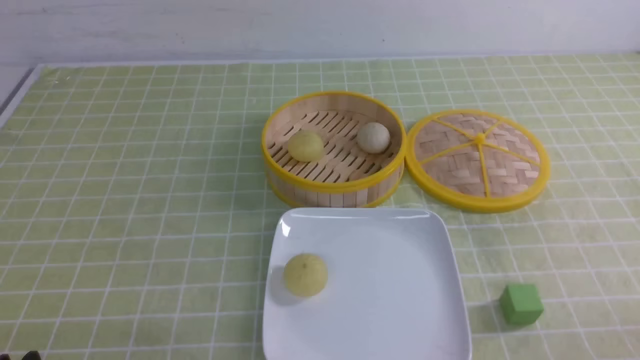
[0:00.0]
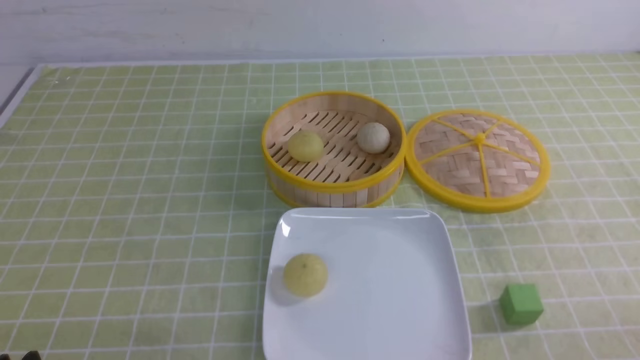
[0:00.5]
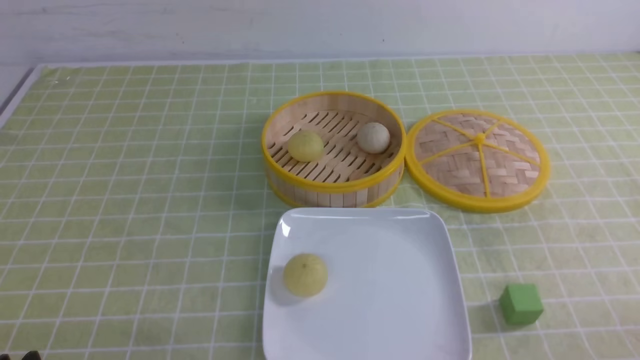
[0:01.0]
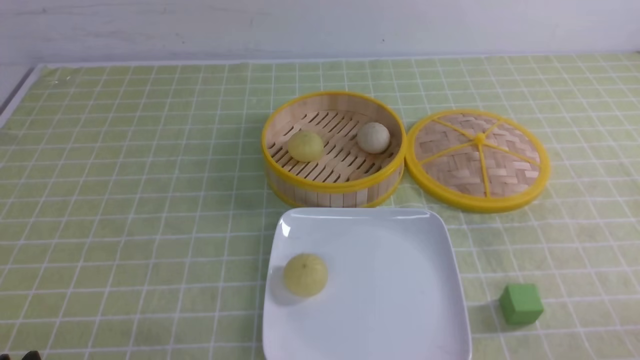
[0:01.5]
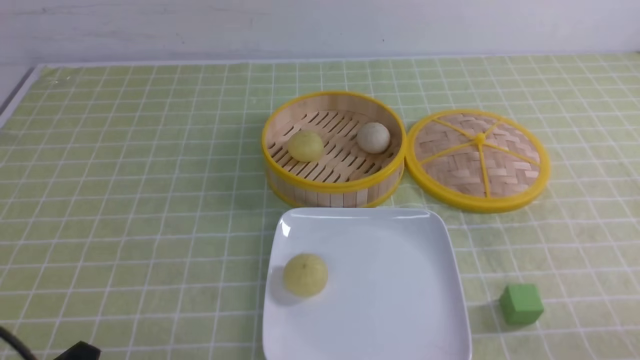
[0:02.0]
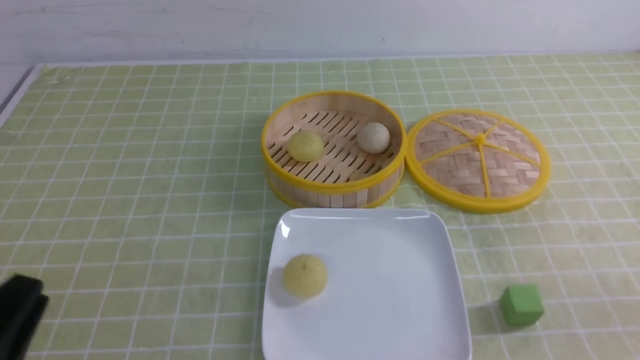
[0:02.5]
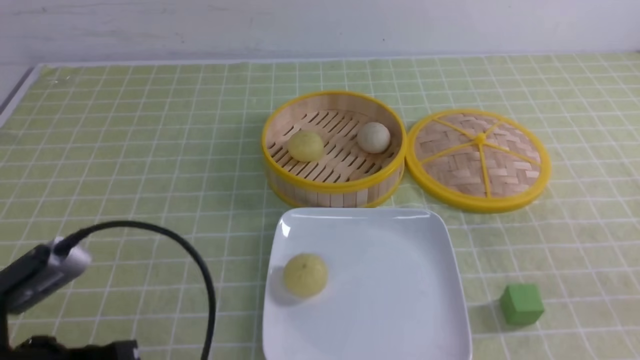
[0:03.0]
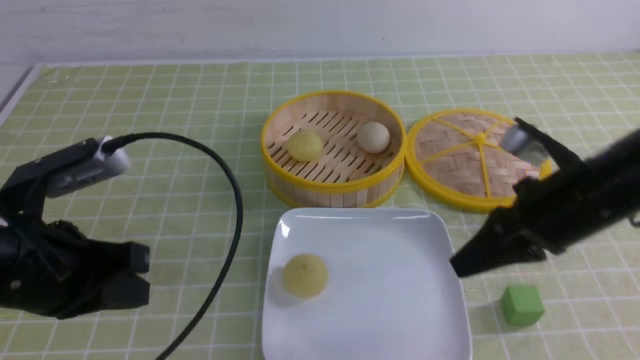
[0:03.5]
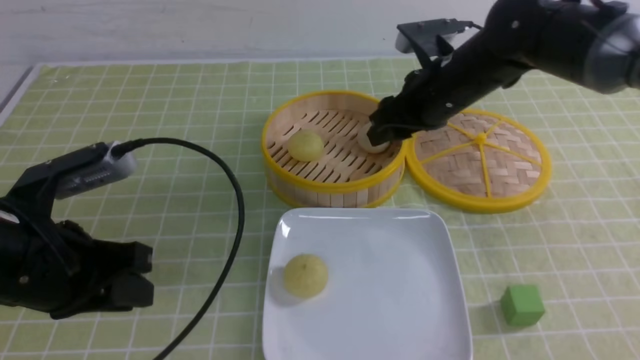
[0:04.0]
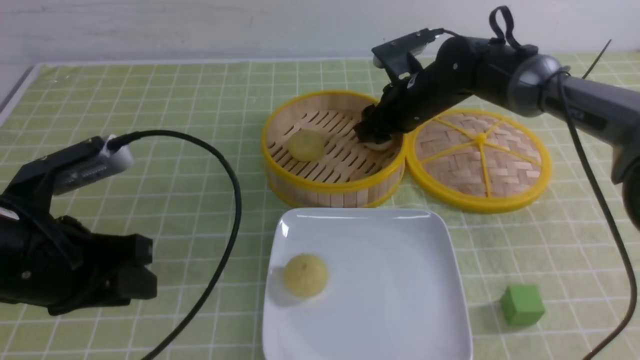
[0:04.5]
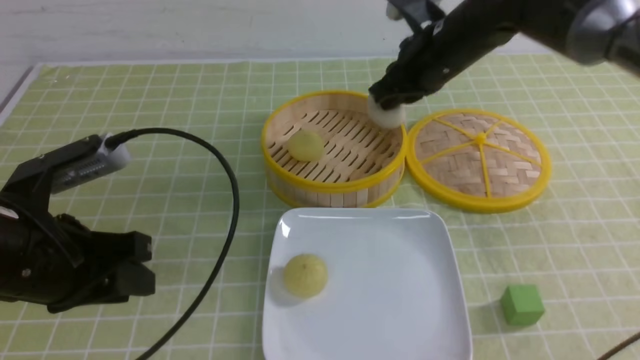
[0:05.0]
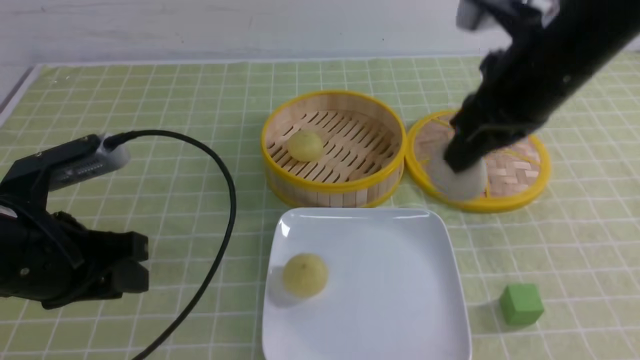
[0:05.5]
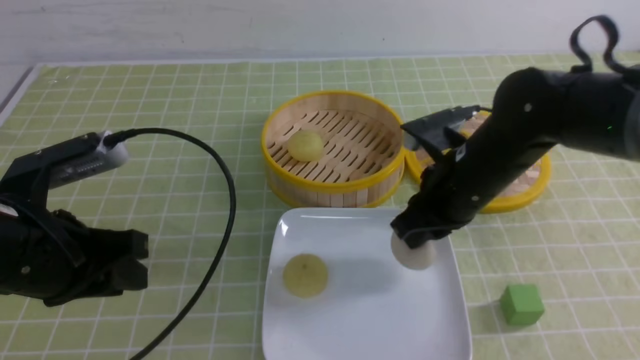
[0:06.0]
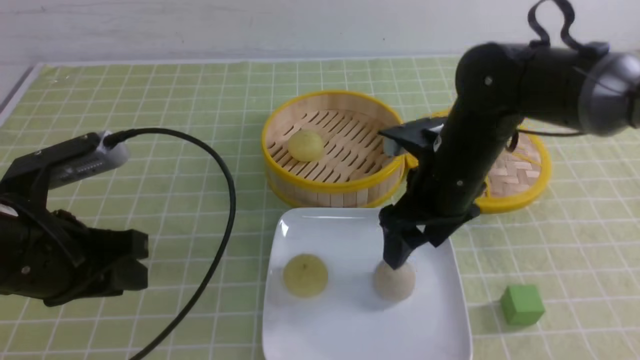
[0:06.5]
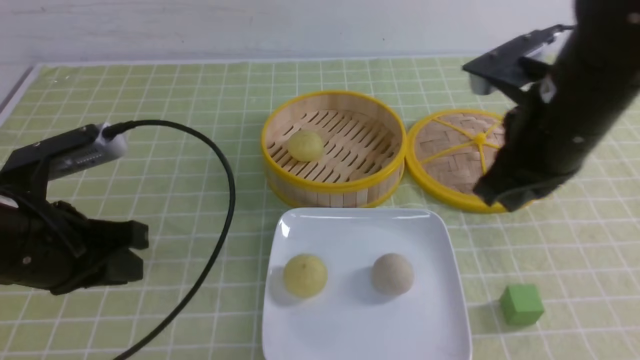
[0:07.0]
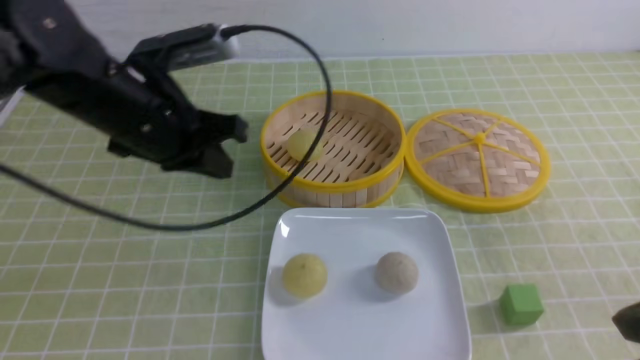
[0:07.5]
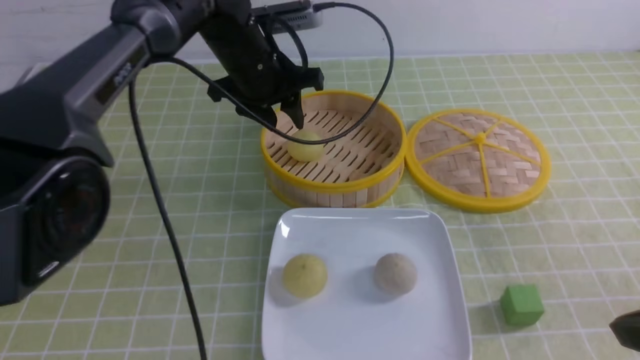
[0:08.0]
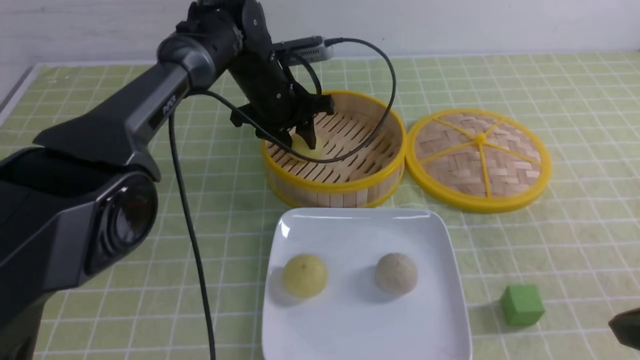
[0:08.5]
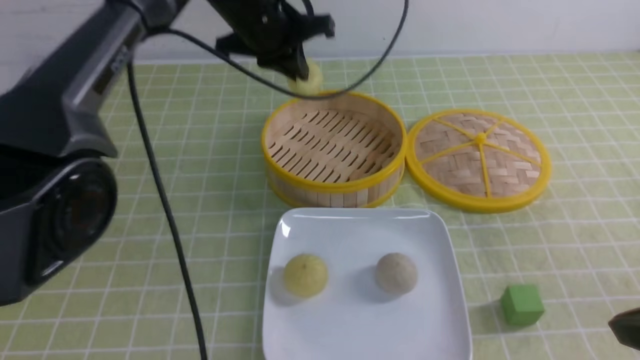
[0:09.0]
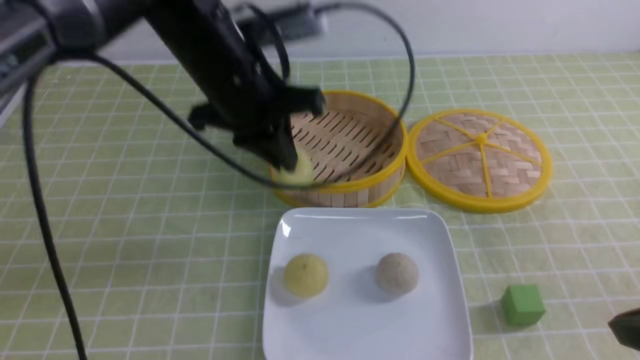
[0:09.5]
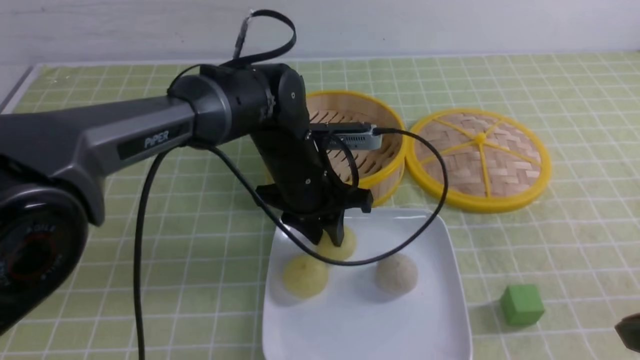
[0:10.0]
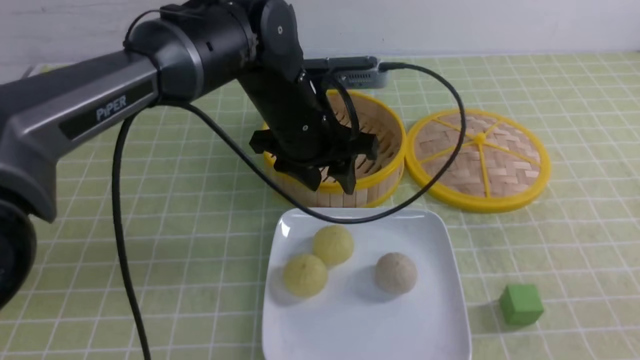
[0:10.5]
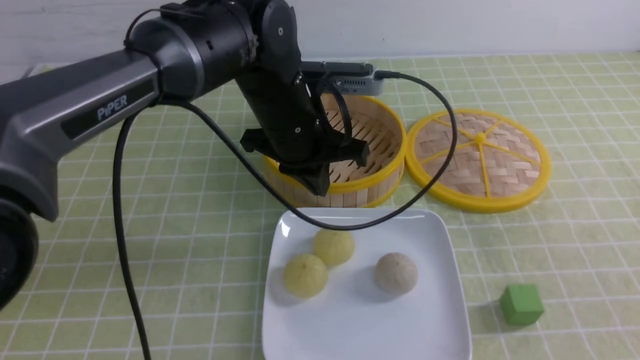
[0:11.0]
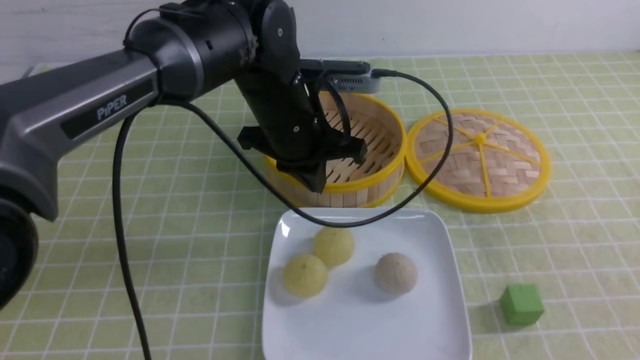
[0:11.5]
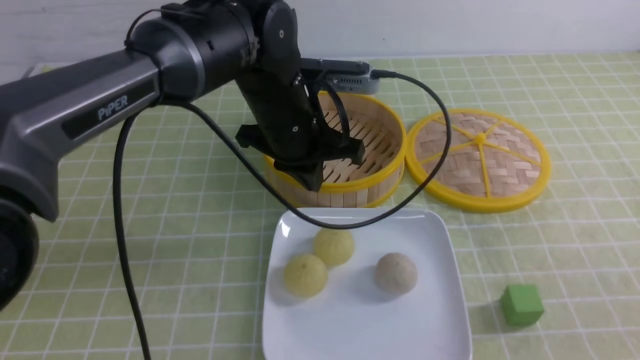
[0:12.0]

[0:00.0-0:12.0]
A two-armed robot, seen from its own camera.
Step, 0:00.0 to 0:04.5: use the right arm to grab the steamed stuffed bun that is closest to it.
Step, 0:05.0 to 0:06.0: use the right arm to put the steamed stuffed bun into the plate.
Step, 0:06.5 to 0:08.5: use the left arm to grab the steamed stuffed bun that is closest to it.
Step, 0:09.0 to 0:10.0: use the left arm to put the steamed stuffed bun into the plate.
0:02.0 to 0:04.0: The right gripper travels forward and to the left by some 40 cm, and closes, then opens again. Meanwhile the left gripper moves forward and upward, about 15 cm, and closes, then opens again.
0:04.0 to 0:06.0: The right gripper heads backward, covering roughly 10 cm, and closes.
0:06.0 to 0:08.0: The right gripper is displaced backward and to the right by roughly 25 cm, and opens and closes again; the left gripper goes some 30 cm forward and to the right, and closes, then reopens.
0:08.0 to 0:10.0: The left gripper swings up and down, roughly 15 cm each way, with 2 reversals, and closes, then reopens.
0:10.0 to 0:12.0: The right gripper is displaced backward by roughly 5 cm; the left gripper moves upward, approximately 5 cm, and closes up.

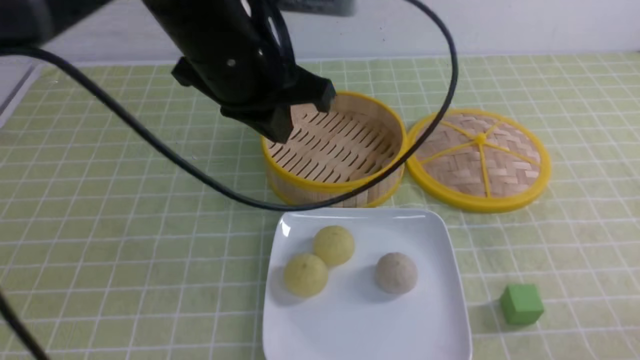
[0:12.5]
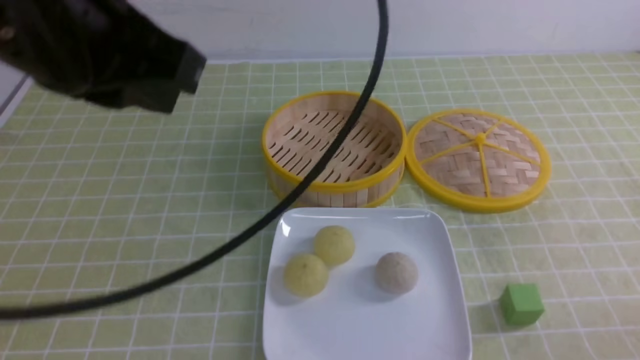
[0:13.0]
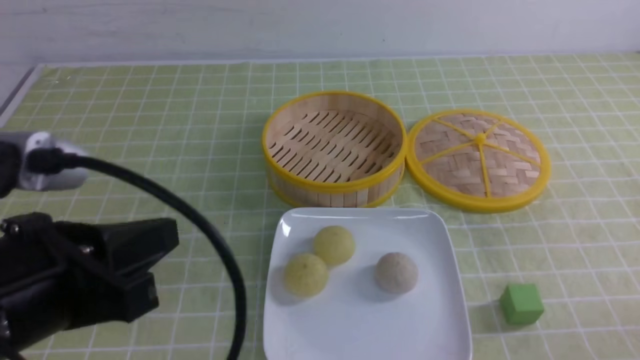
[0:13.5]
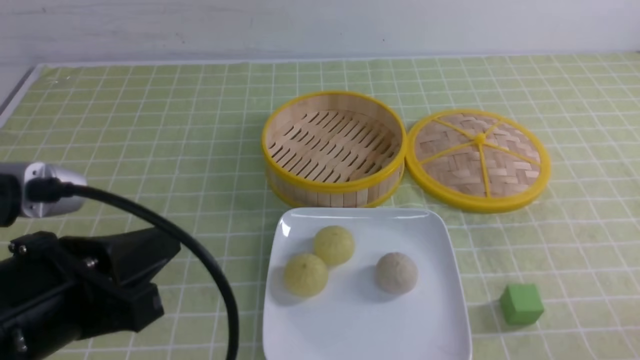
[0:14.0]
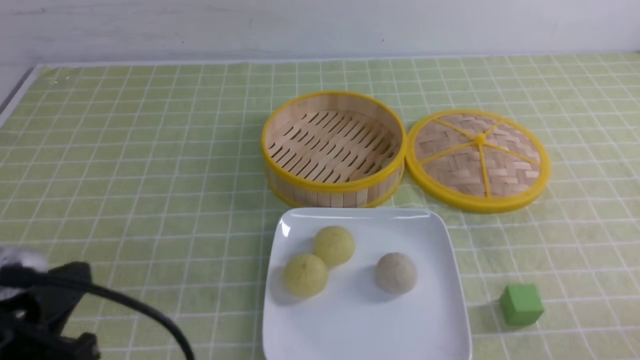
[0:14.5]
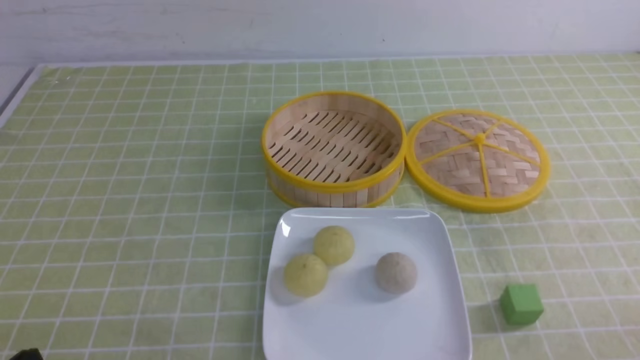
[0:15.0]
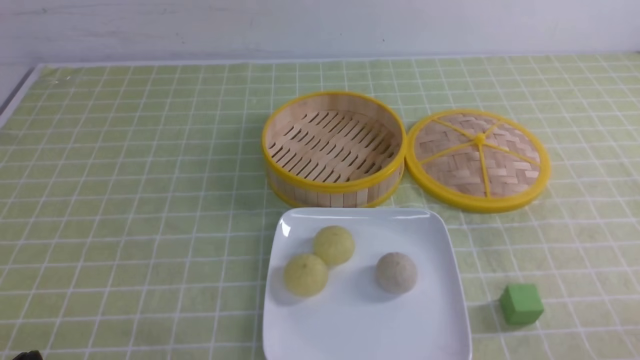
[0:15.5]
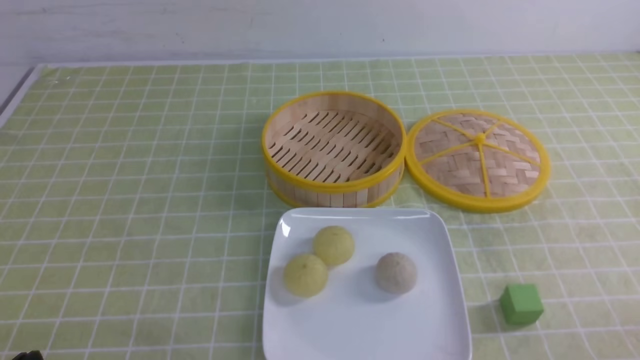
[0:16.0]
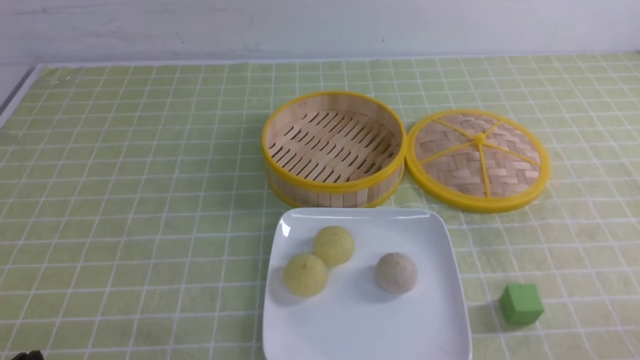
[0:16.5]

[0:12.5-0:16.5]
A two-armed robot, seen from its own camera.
0:12.5 to 0:14.5: The left gripper travels backward, to the left and downward by some 30 cm.
0:14.5 to 0:16.5: The left gripper moves downward, roughly 10 cm.
